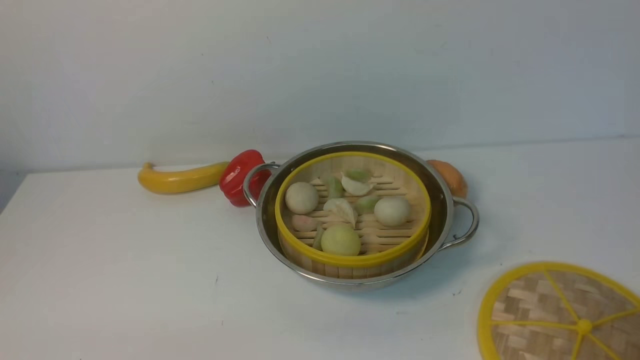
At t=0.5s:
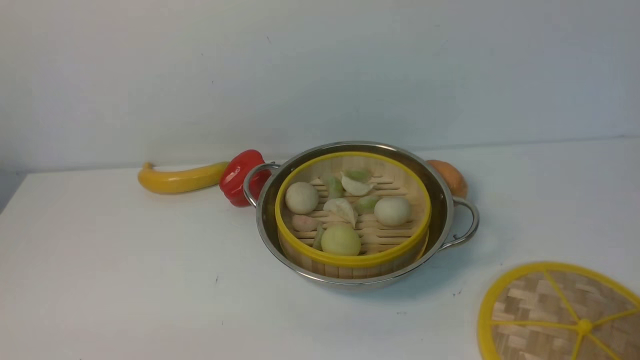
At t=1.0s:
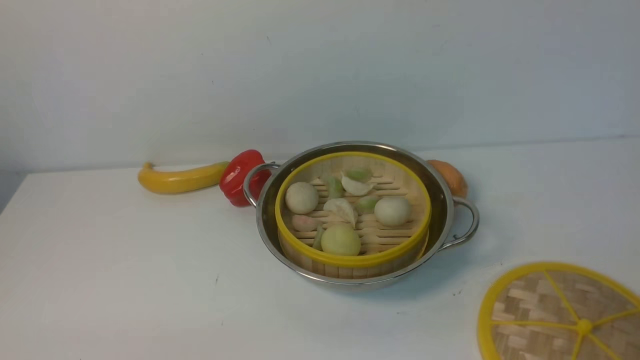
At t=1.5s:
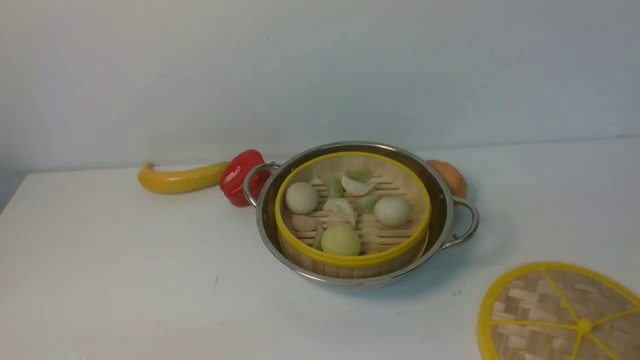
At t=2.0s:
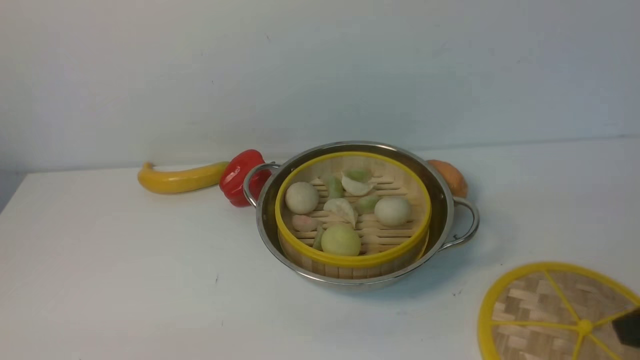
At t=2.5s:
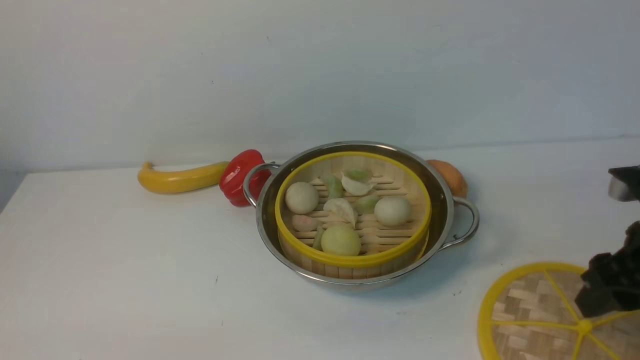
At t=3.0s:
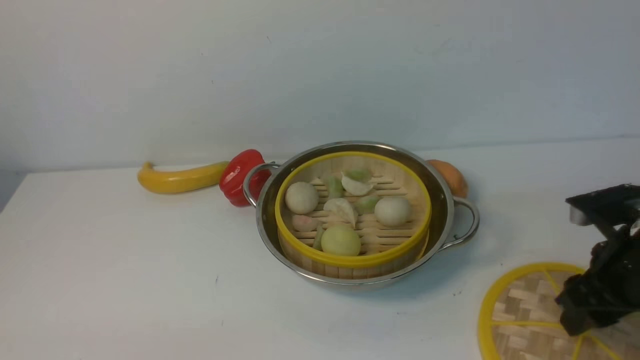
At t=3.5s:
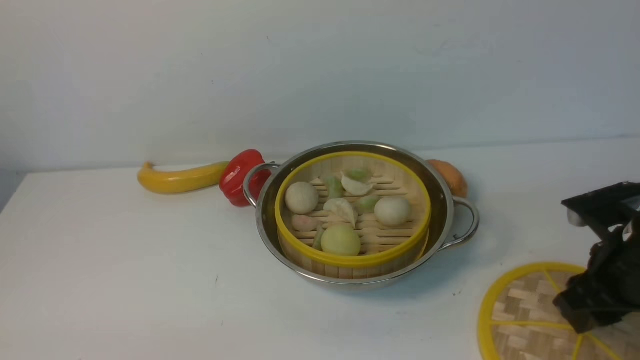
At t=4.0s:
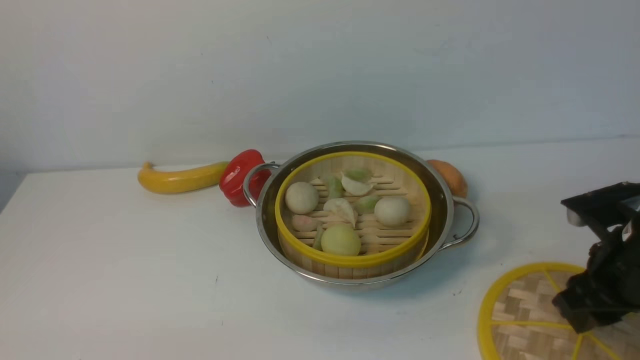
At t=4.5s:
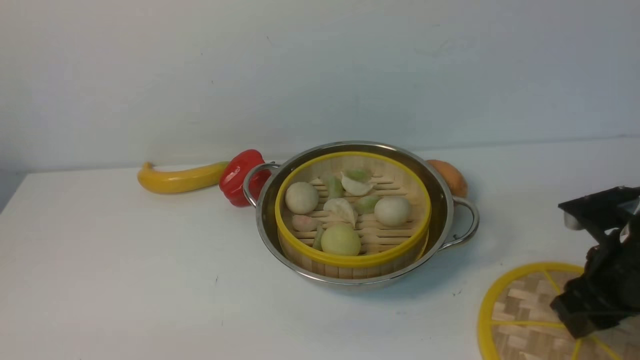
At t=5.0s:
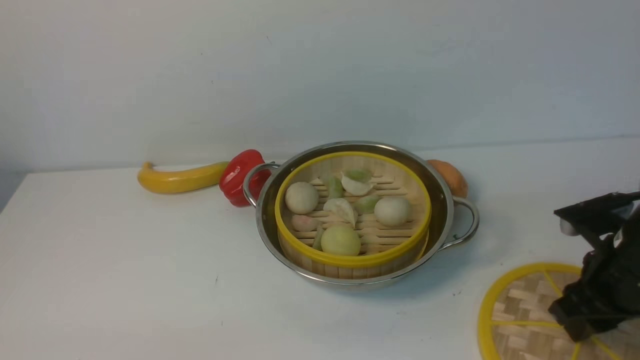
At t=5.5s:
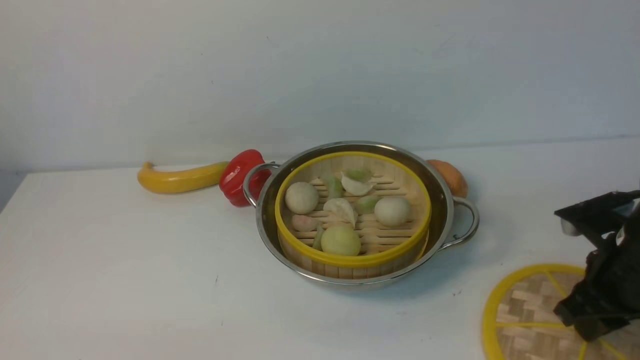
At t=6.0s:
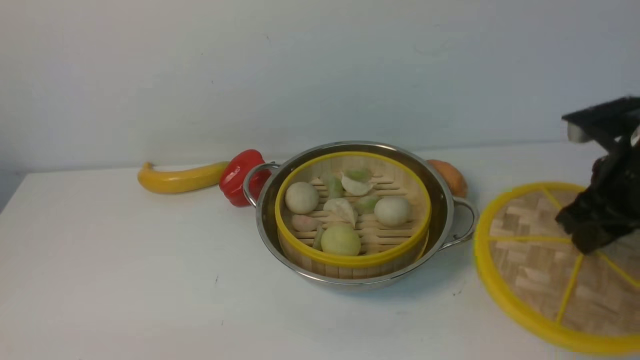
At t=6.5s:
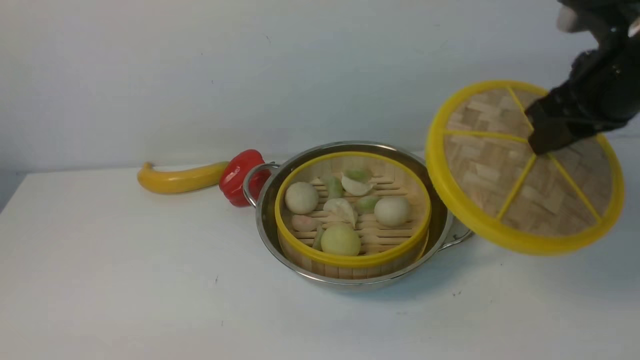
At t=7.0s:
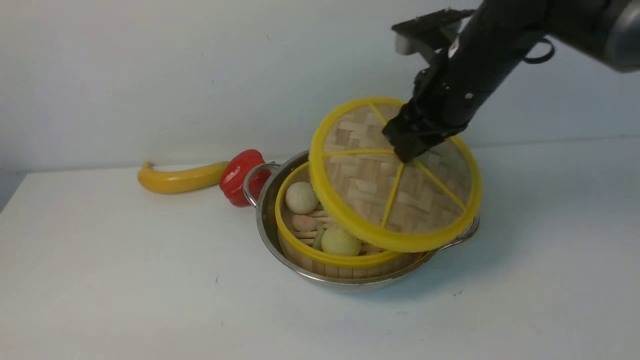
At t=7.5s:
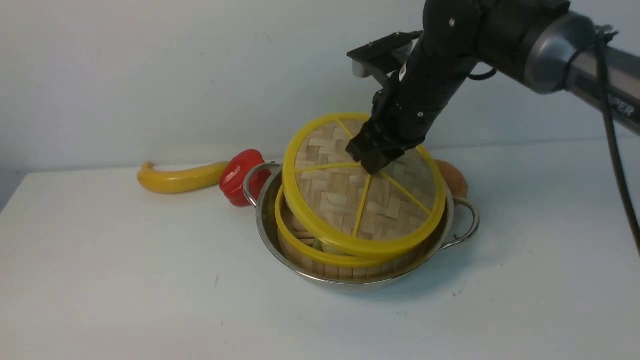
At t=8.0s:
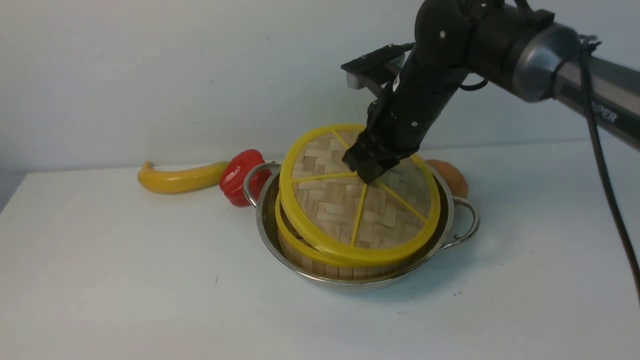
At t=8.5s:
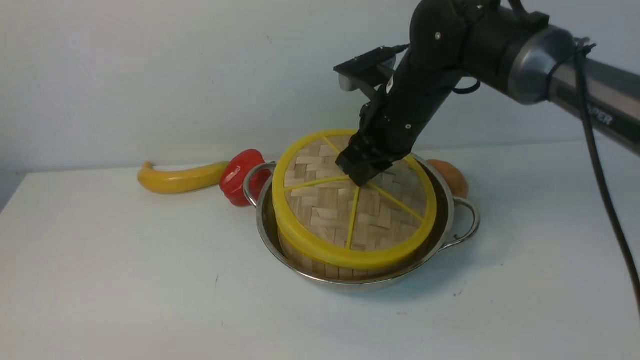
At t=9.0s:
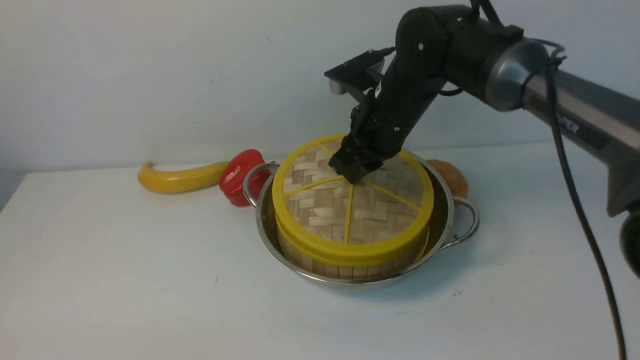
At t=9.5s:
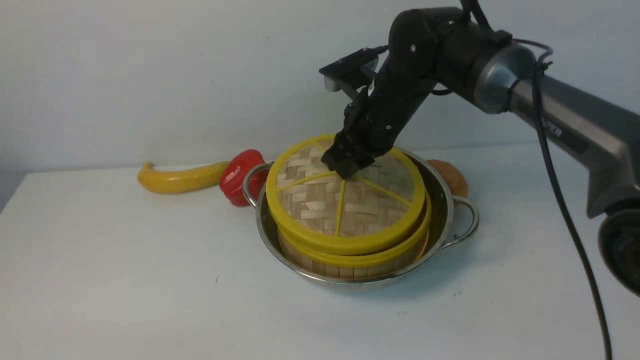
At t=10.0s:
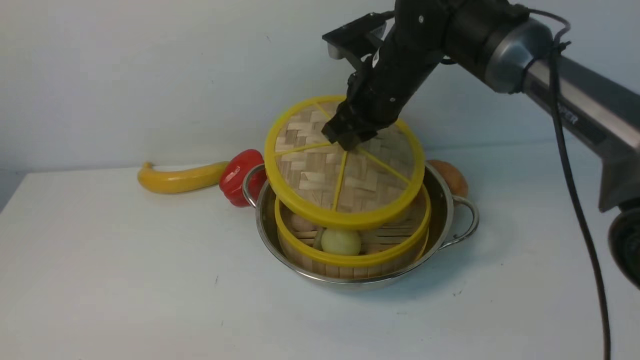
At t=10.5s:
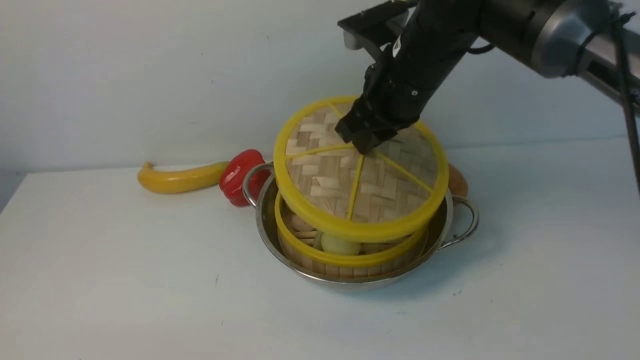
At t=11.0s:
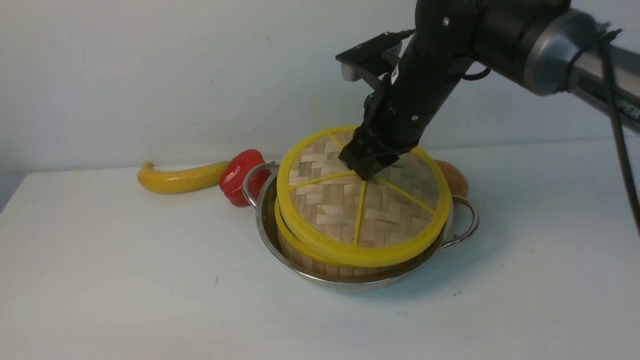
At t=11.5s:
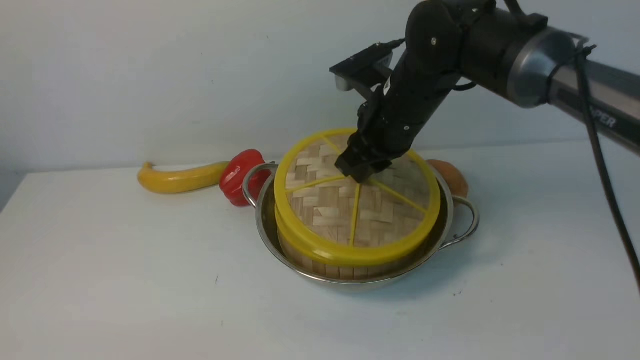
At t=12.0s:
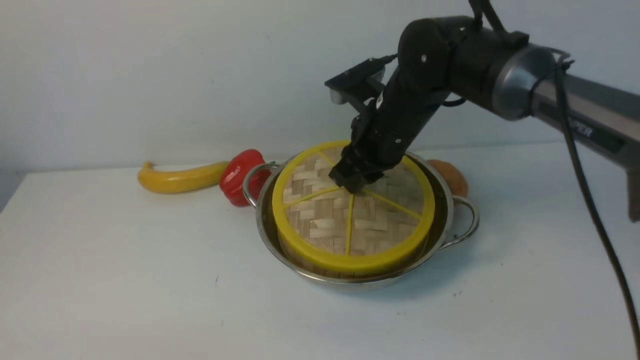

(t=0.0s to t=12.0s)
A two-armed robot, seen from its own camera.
Task of the whole recording: place the steamer in the pot on the white table, and put the lid on the steamer.
Step, t=0.0s - t=5.5s: use the right arm to lift the lid of the steamer.
t=2.0s - t=4.0s: The right gripper moves forward and downward, about 15 cm.
t=4.0s - t=6.0s: The right gripper travels upward by roughly 10 cm, and closes.
t=6.0s - t=8.0s: The right gripper travels to the left and forward by some 20 cm.
t=8.0s - t=12.0s: The grippers make only small movements.

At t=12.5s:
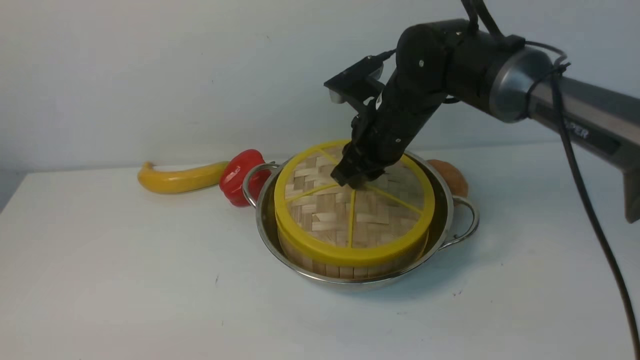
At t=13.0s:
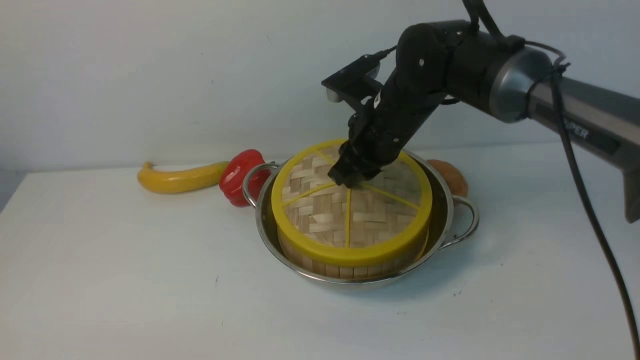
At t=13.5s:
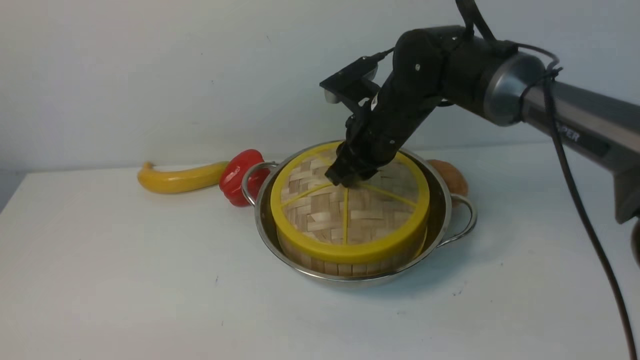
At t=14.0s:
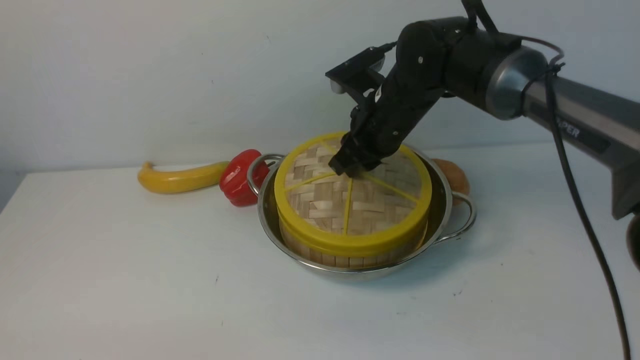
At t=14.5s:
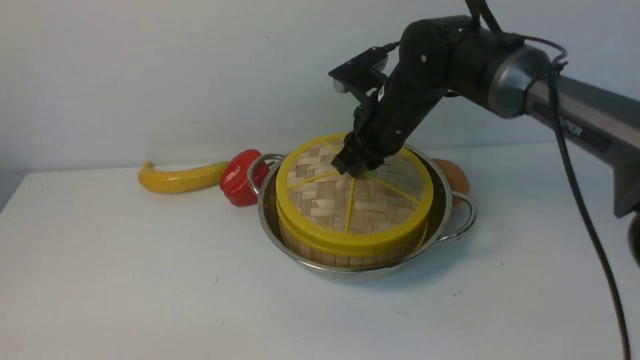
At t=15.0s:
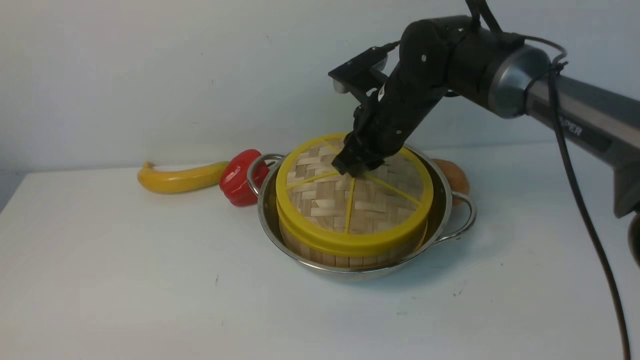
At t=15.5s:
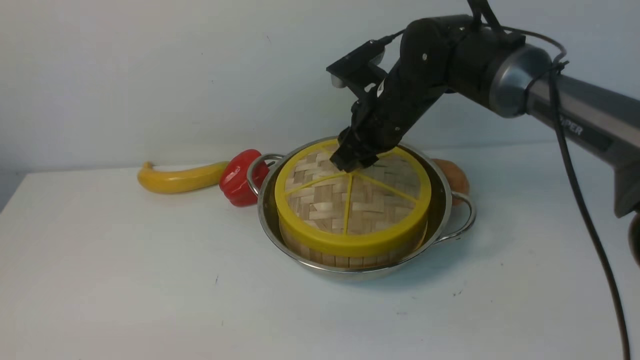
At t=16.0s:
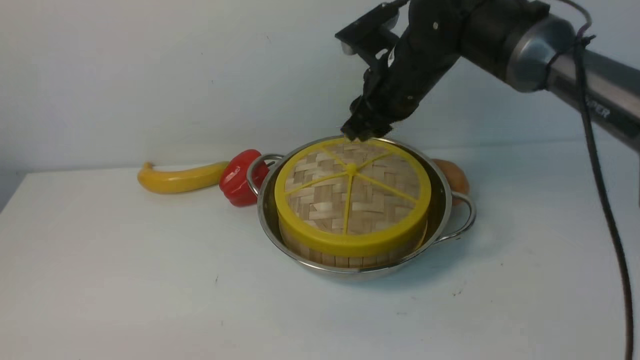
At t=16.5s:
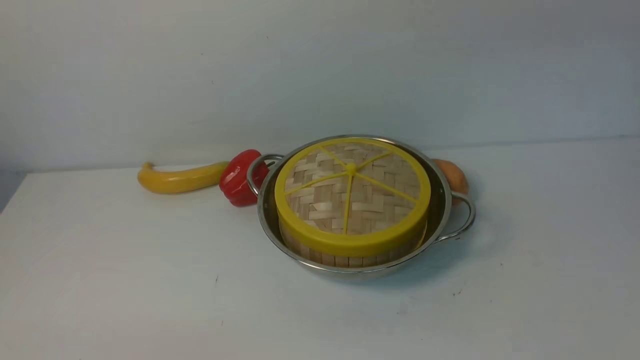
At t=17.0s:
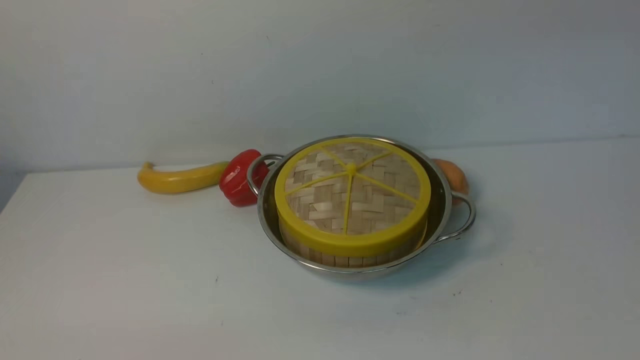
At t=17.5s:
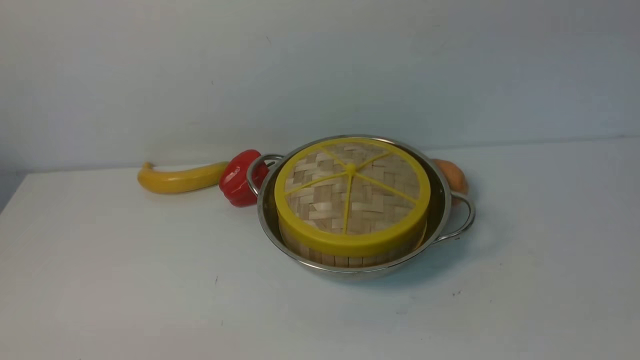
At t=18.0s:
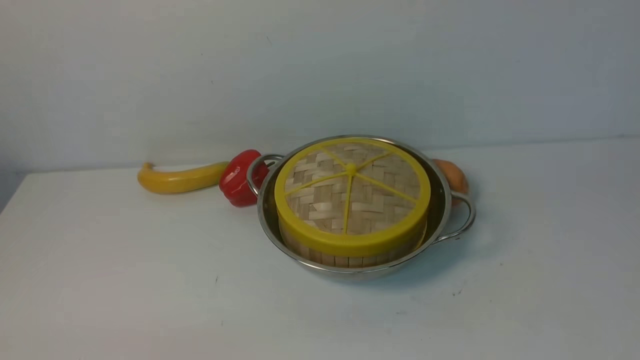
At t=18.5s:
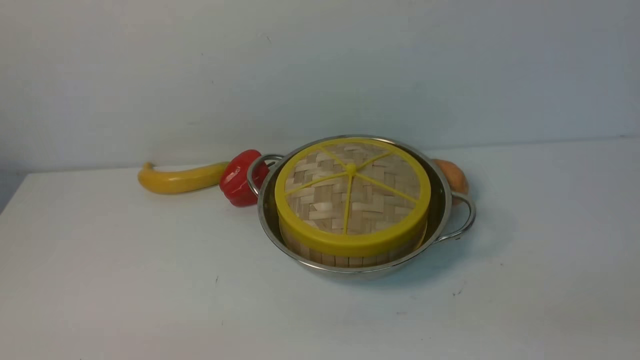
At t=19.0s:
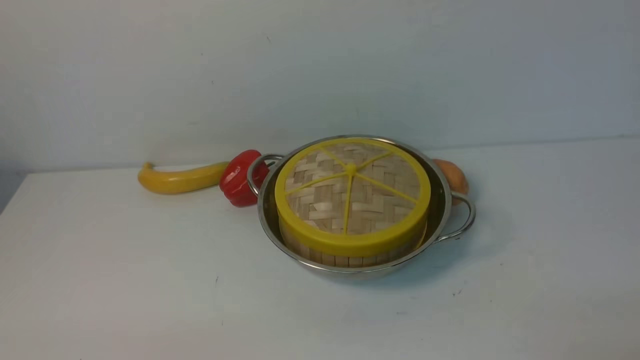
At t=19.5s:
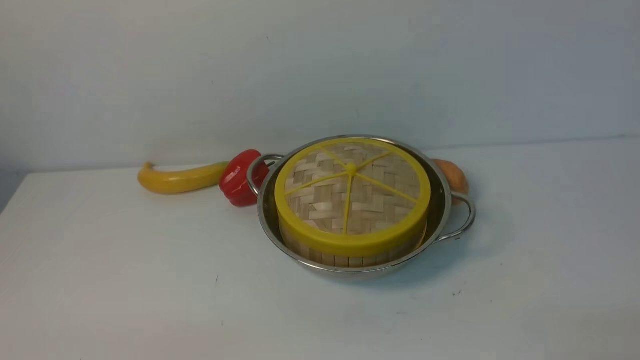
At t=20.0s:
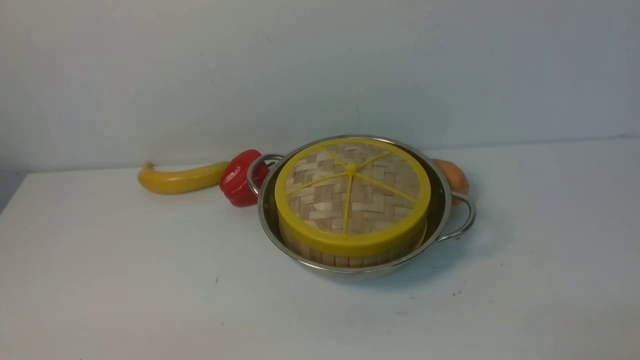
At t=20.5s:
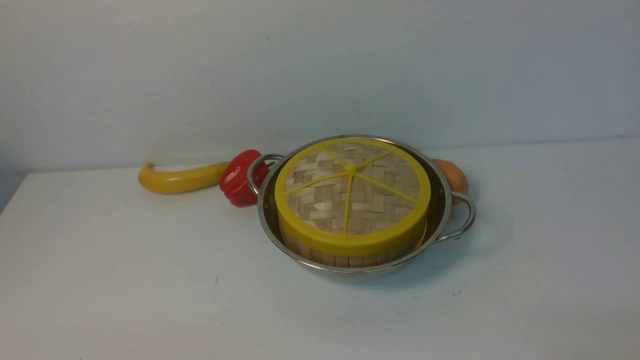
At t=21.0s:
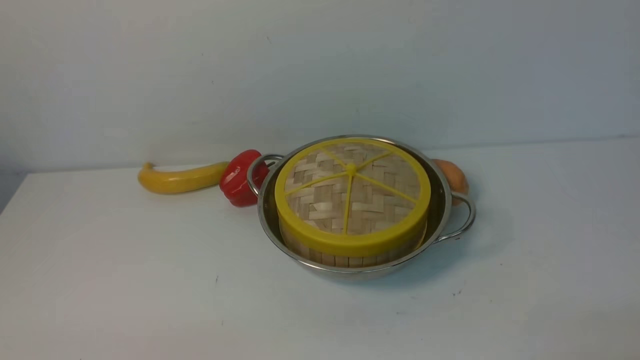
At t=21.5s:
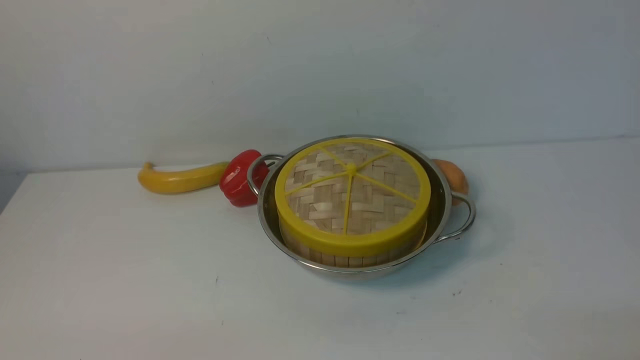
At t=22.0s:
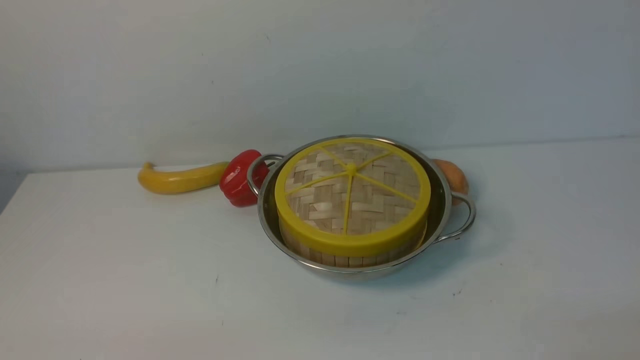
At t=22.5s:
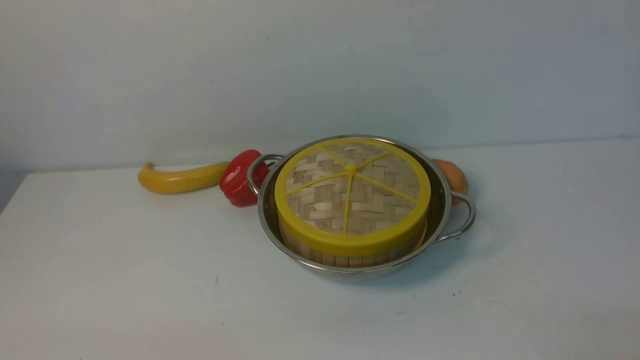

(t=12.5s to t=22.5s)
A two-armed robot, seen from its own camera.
Task of the whole recording: place the steamer in the pot on the white table, and put the lid on the steamer.
Step, t=12.5s - t=16.0s: use the right arm to place the steamer lid on the steamer.
t=12.5s - t=14.5s: The two grippers keep their place.
t=14.5s - t=16.5s: The right gripper is displaced upward and backward by about 25 cm.
t=20.5s - t=22.5s: Both grippers stay about where they are.
